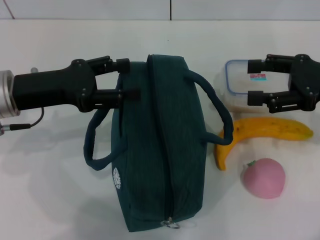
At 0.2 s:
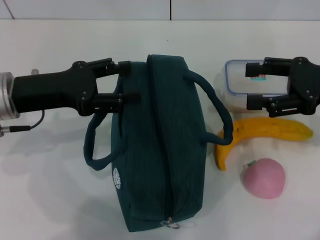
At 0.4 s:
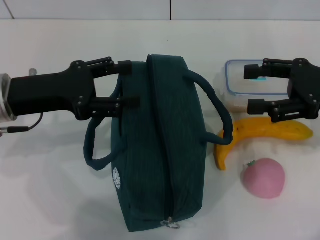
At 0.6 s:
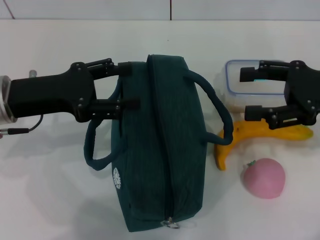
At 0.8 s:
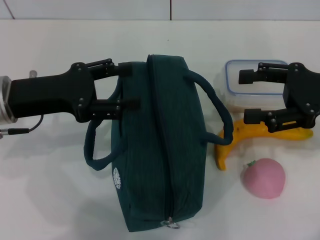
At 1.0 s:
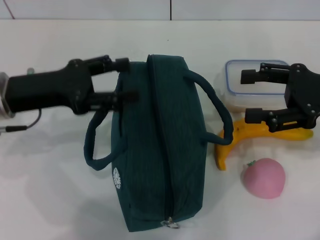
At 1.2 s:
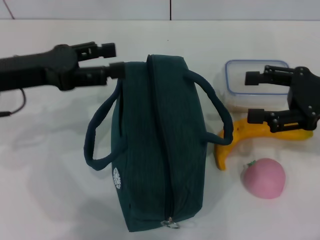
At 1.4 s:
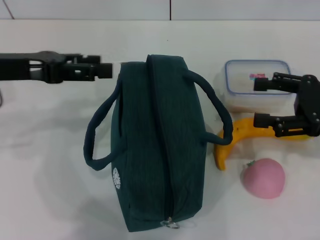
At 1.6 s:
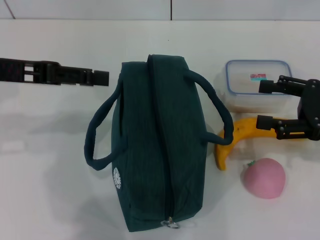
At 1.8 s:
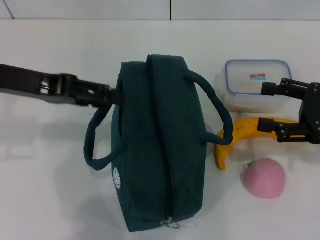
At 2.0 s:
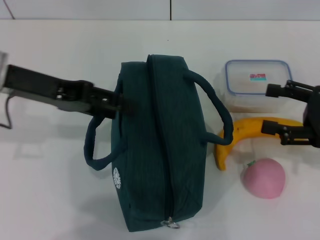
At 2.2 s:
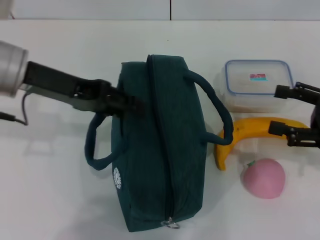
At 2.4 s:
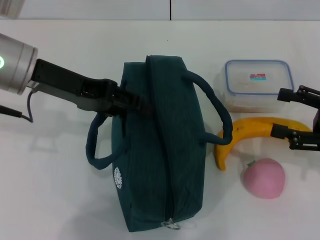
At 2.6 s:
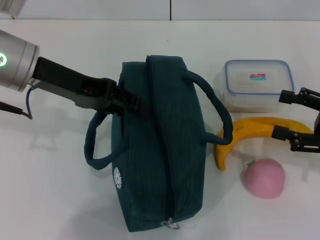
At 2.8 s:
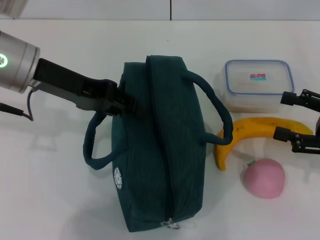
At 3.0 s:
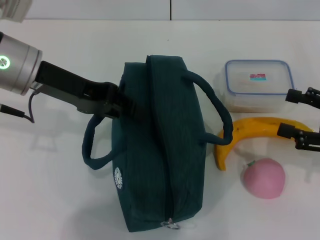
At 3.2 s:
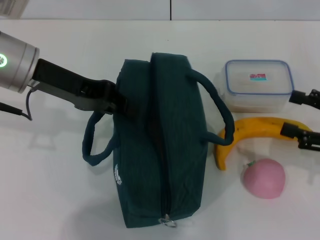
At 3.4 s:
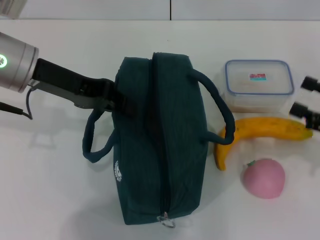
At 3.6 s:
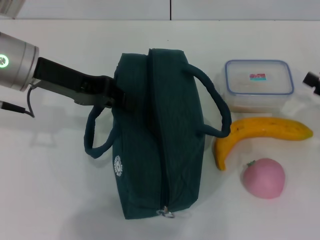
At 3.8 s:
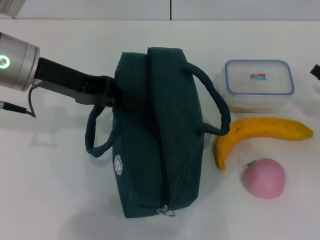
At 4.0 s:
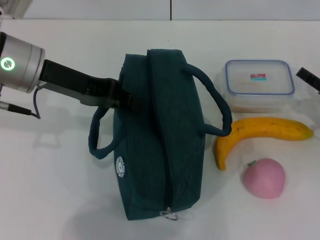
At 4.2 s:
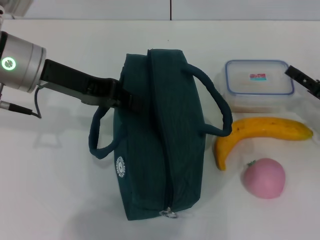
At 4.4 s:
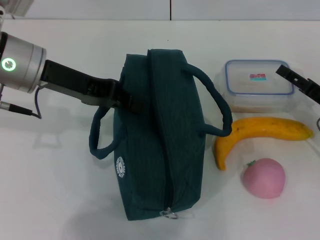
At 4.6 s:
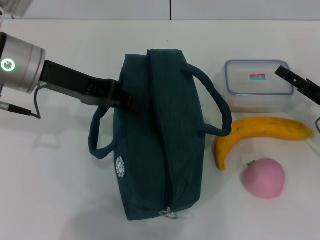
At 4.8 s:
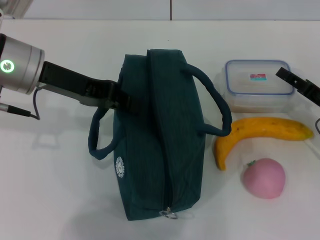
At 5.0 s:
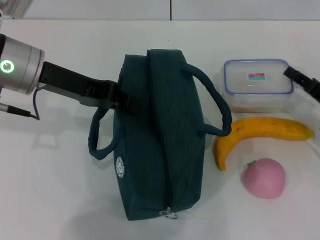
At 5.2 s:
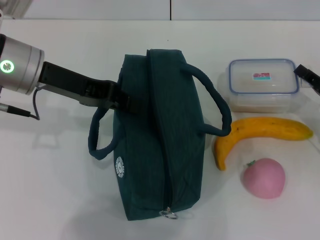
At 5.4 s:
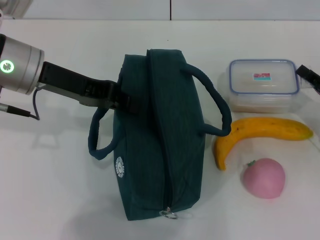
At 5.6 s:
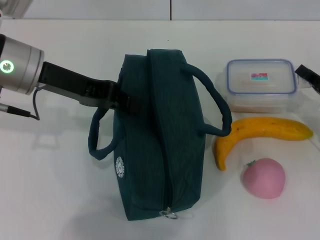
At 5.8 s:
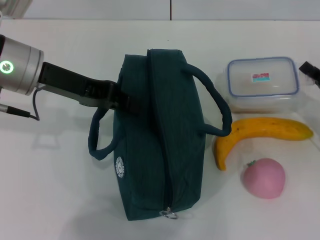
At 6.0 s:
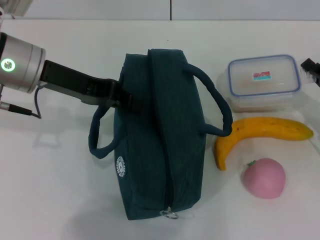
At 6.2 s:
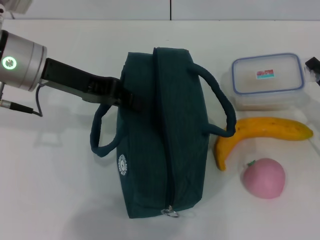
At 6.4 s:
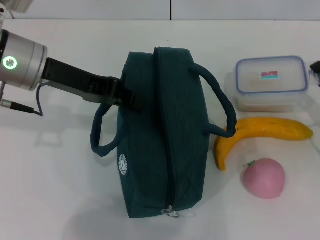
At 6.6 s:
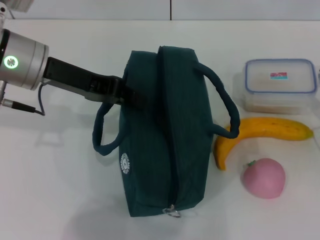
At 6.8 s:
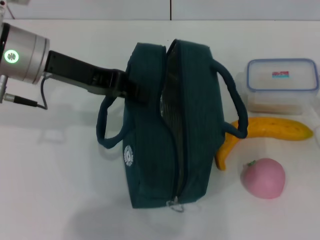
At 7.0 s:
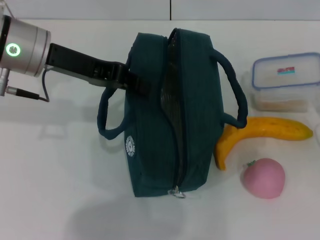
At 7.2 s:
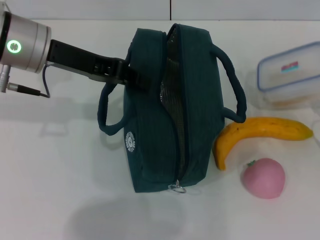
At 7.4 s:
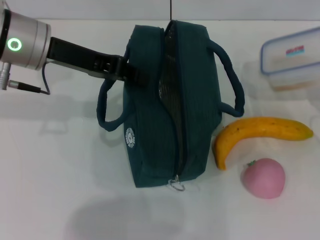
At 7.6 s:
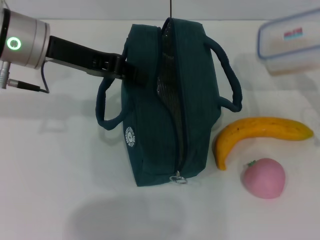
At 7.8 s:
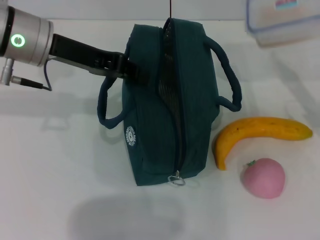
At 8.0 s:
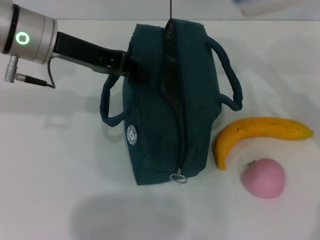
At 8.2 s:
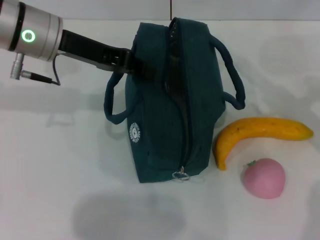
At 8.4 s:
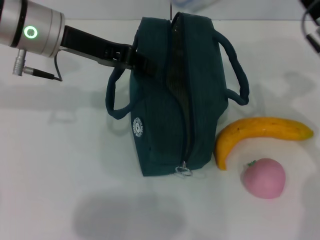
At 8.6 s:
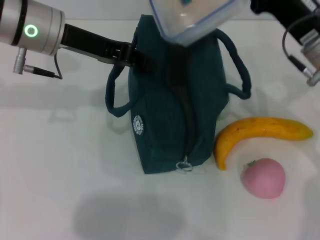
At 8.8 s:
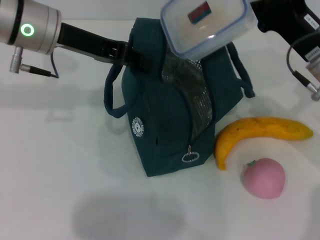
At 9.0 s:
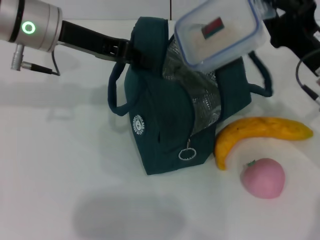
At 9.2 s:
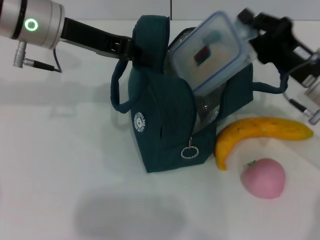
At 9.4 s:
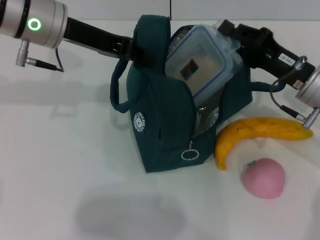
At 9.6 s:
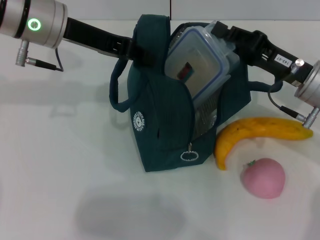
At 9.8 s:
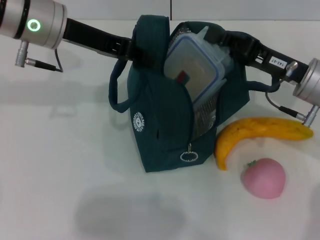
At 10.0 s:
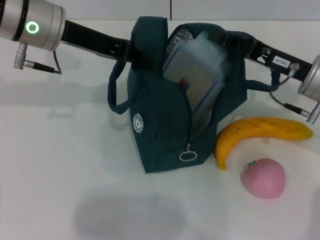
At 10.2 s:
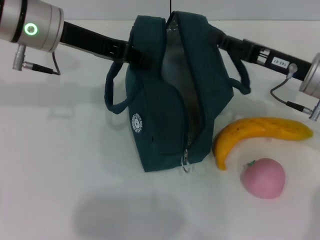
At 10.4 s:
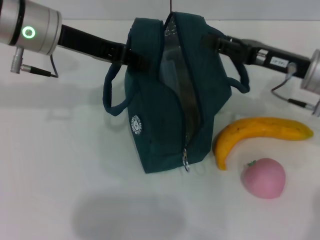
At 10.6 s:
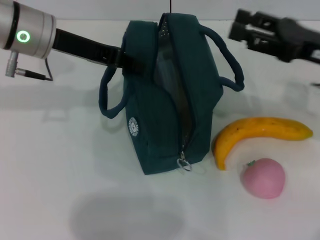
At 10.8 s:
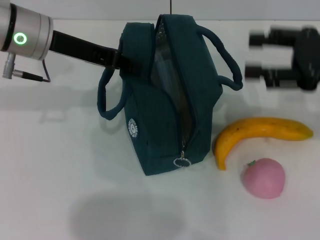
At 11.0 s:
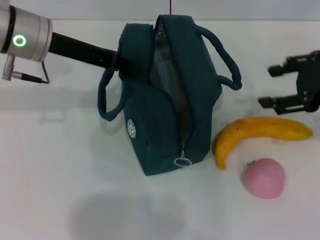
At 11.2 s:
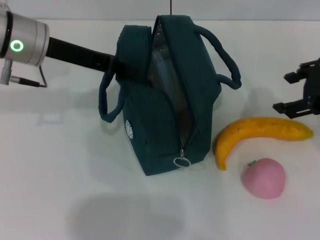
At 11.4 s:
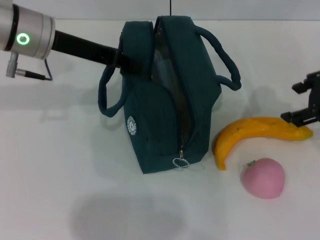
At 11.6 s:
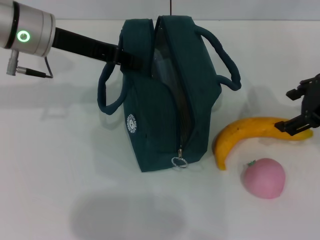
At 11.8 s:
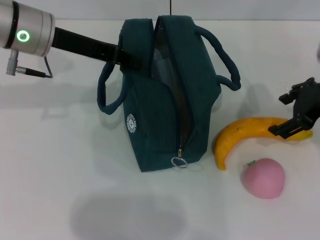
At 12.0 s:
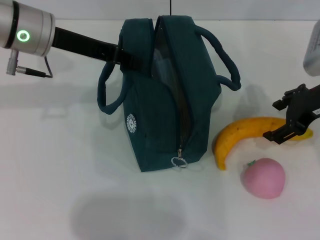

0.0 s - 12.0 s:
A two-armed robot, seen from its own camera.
Step, 0.0 s - 2.6 s: Hold the lunch bag with your left hand.
Step, 2.8 s - 6.6 s: Pick up the lunch box with your right hand.
Step, 6.8 s - 10.0 s: Place the lunch box into the lunch bag with your right hand.
0.0 s - 1.6 s: The right gripper shifts by approximately 5 cm. The left gripper moves upward, about 5 cm.
1.6 s - 3.0 s: The left gripper shifts some 5 cm to the right, and closes its fingers; the right gripper ends up approximately 5 cm from where it was.
3.0 s - 4.4 s: The right gripper shifts approximately 10 cm downward and forward. Meanwhile the left gripper closes.
4.4 s - 6.0 s: The right gripper closes.
7.6 s - 9.0 s: The right gripper moves to the left, about 10 cm.
10.4 s - 12.0 s: The right gripper opens its fingers.

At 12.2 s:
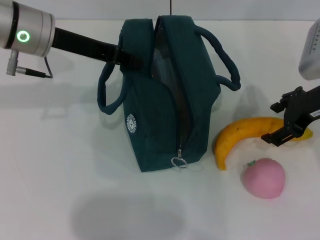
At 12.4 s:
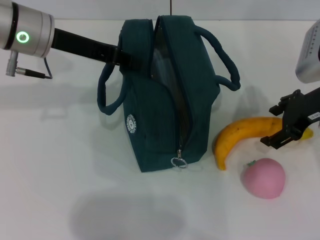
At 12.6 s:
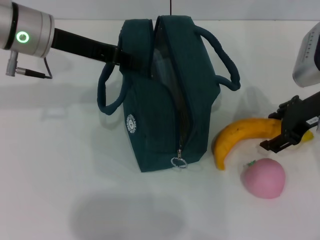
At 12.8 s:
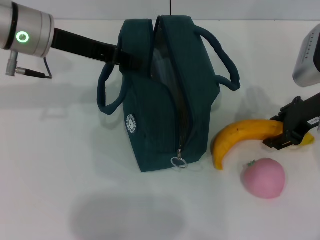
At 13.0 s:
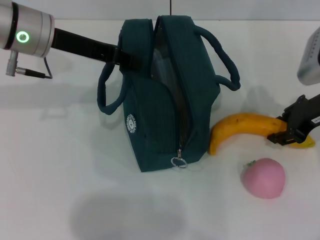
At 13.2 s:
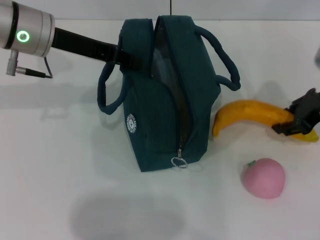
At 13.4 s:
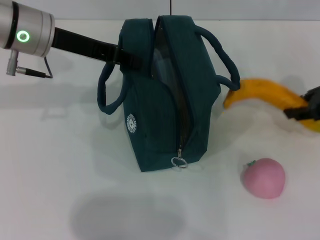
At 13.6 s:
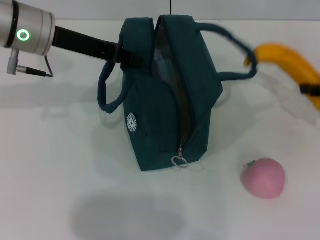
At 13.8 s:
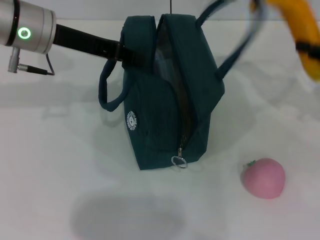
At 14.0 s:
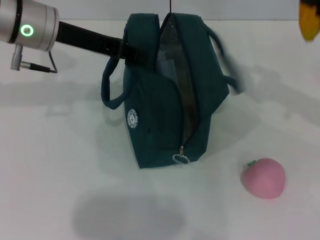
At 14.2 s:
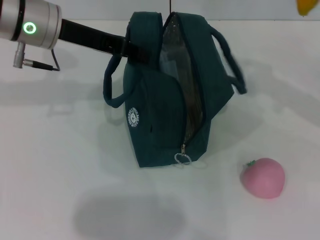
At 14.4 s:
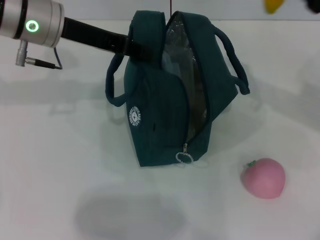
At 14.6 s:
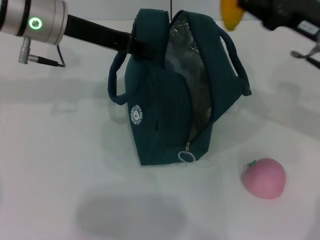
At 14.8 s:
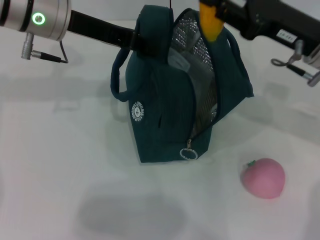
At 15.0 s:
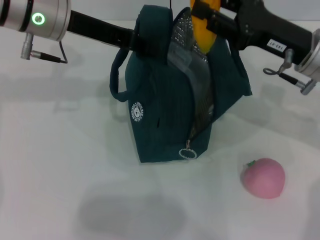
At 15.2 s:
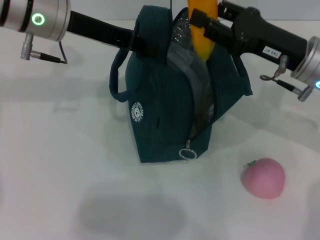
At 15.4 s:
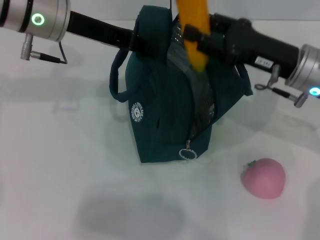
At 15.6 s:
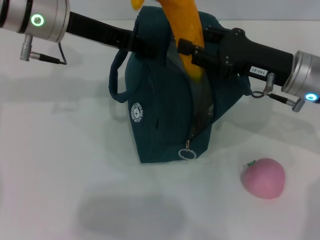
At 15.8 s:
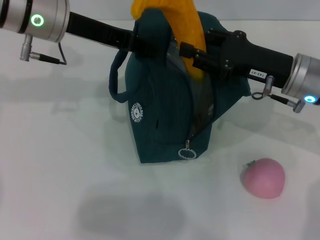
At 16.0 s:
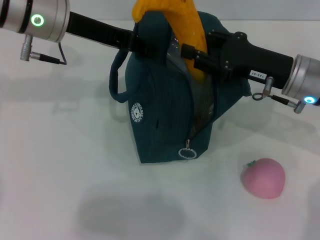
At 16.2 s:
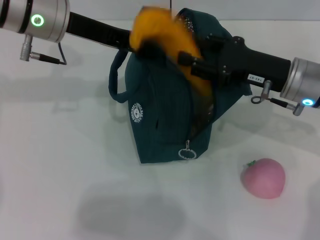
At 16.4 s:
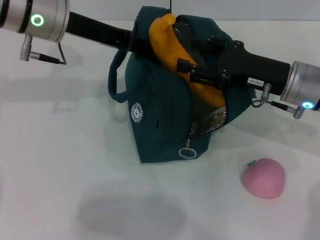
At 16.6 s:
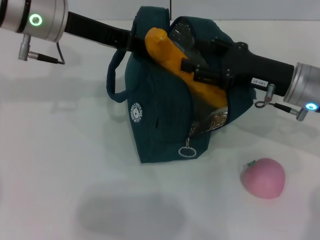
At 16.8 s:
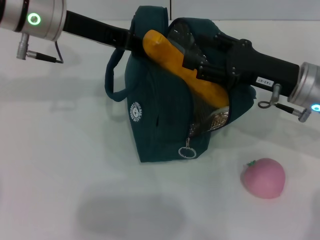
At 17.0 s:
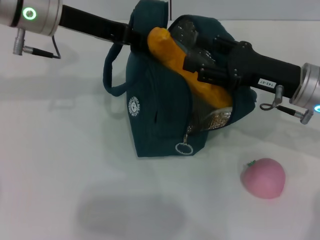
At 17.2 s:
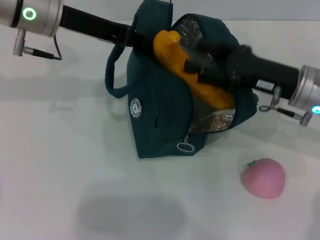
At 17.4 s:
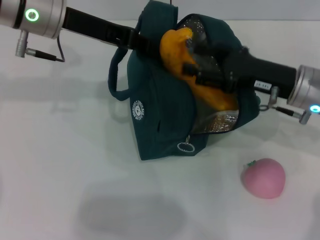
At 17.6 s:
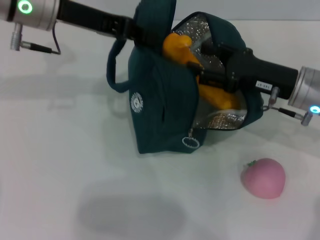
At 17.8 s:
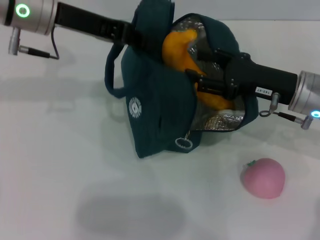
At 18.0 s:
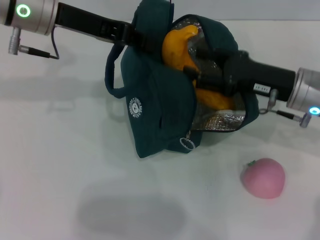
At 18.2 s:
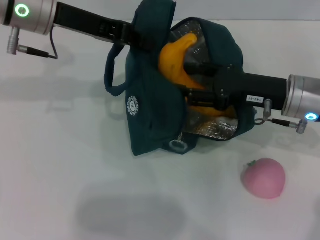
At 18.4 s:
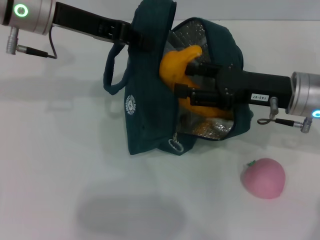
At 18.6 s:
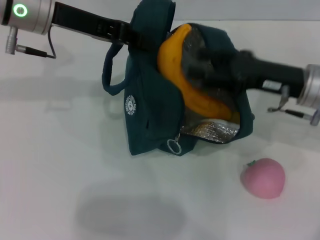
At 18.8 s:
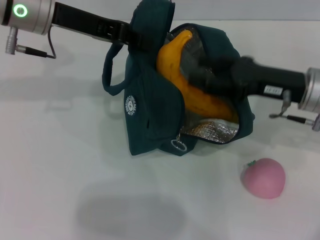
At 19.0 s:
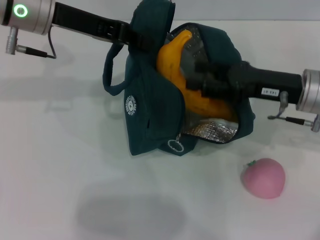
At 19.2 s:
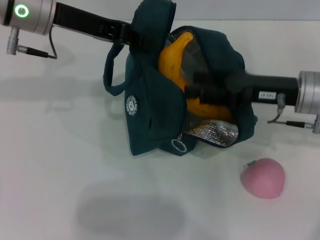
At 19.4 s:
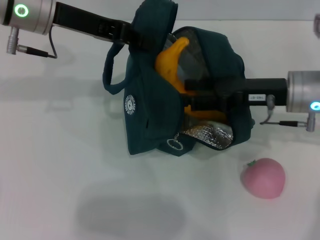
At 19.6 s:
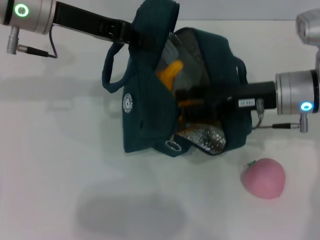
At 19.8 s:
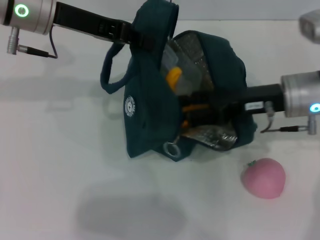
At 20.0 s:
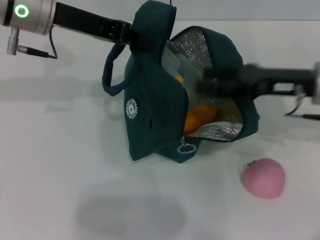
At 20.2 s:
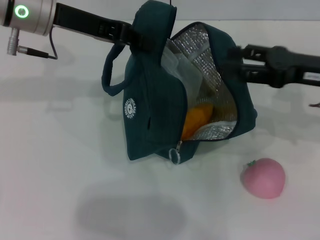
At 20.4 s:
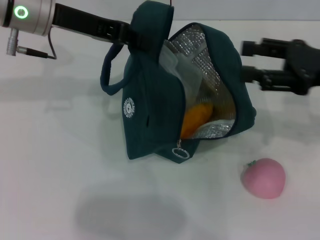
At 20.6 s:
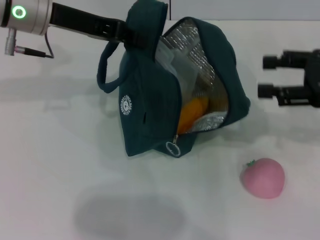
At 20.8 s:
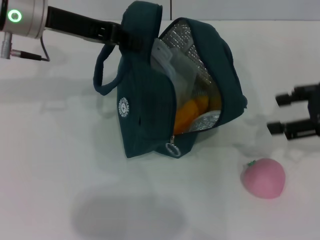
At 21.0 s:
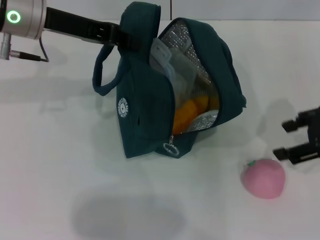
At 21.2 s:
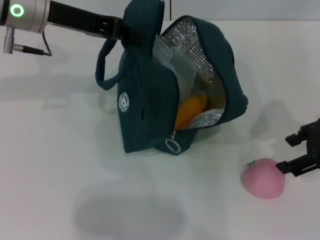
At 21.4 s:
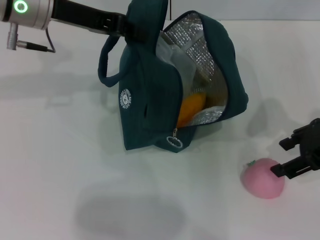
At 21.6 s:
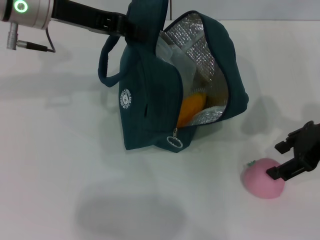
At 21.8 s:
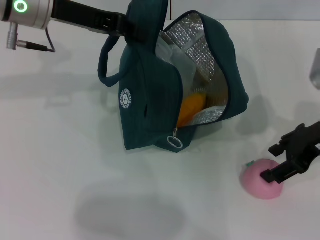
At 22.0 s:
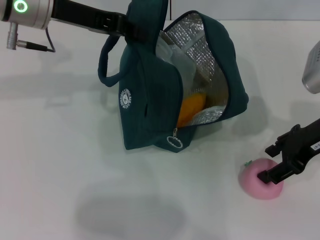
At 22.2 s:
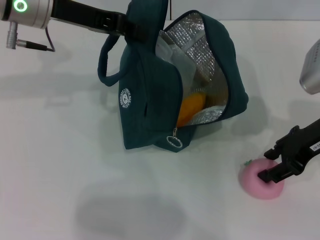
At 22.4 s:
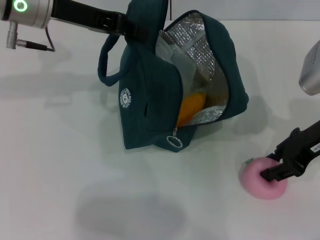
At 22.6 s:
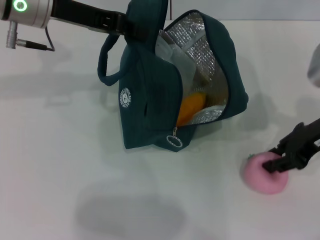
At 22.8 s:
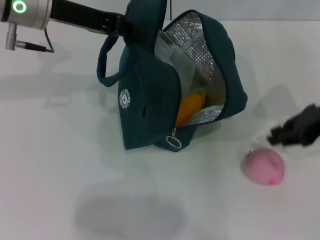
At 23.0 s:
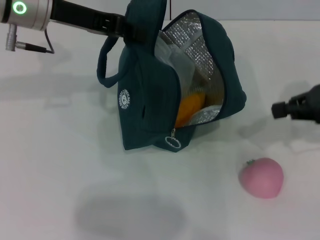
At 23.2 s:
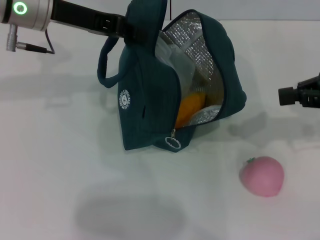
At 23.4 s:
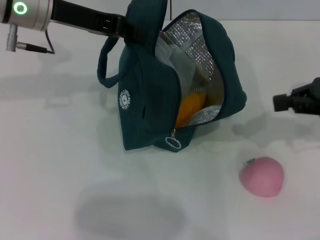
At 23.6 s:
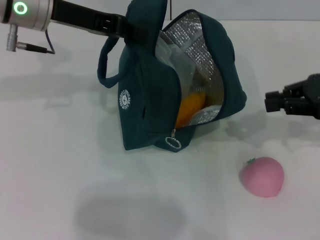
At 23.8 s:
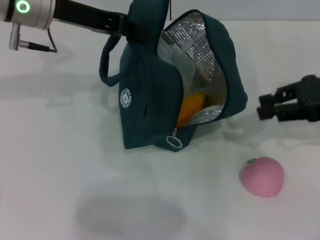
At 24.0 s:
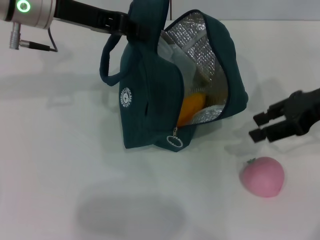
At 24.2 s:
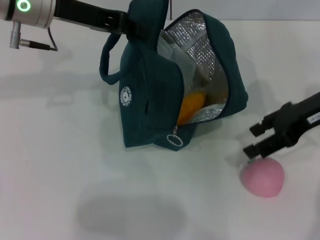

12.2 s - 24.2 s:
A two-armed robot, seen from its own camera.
Step, 13.0 s - 19.8 s: Put the banana into the lunch bag with your right hand.
12.2 s - 13.8 s: The right gripper heads to the right, covering approximately 10 cm, and closes.
13.8 s - 15.2 s: The right gripper heads to the left, covering roughly 15 cm.
15.2 s - 18.2 s: The grippers move only a little.
19.8 s - 21.2 s: The right gripper heads to the right, covering some 10 cm.
21.2 s - 22.6 s: The right gripper closes up.
22.6 s - 24.2 s: The right gripper closes, then reopens.
